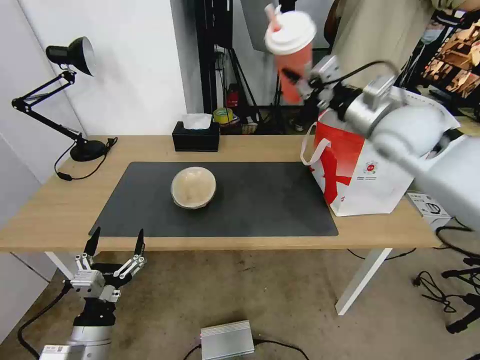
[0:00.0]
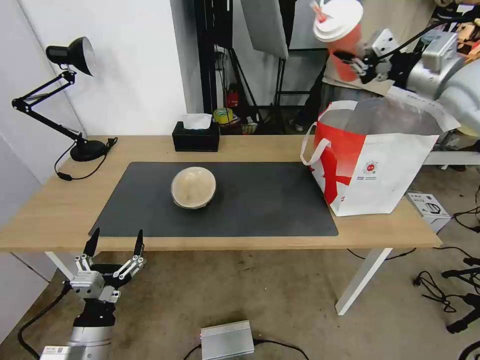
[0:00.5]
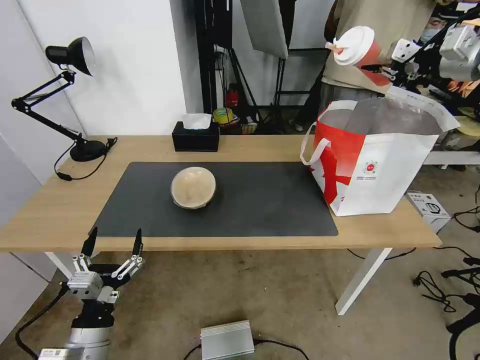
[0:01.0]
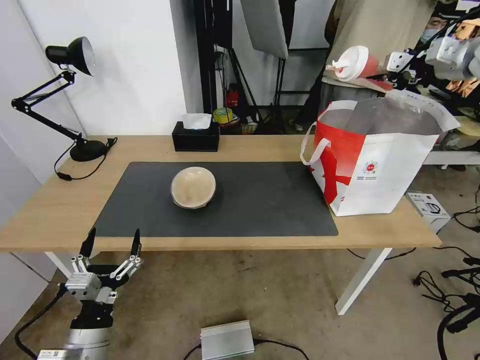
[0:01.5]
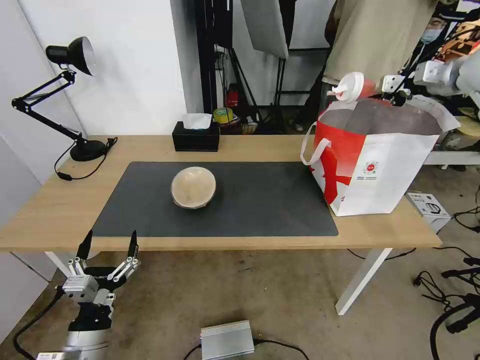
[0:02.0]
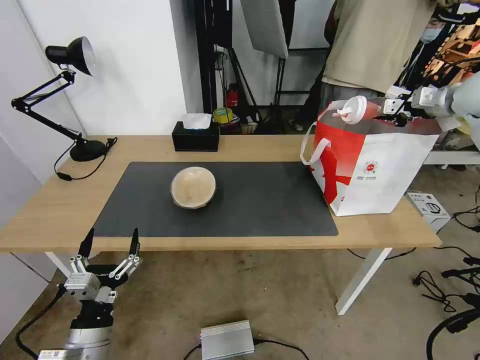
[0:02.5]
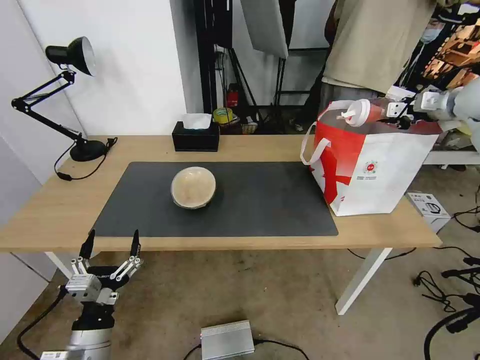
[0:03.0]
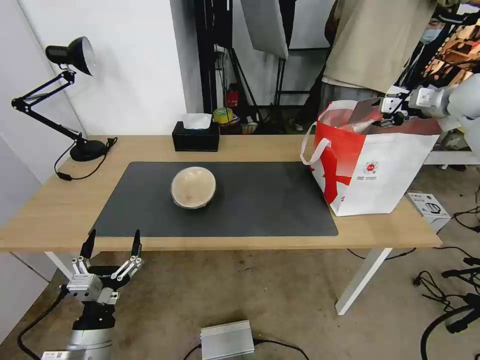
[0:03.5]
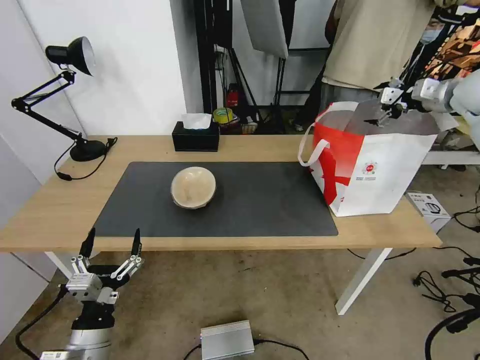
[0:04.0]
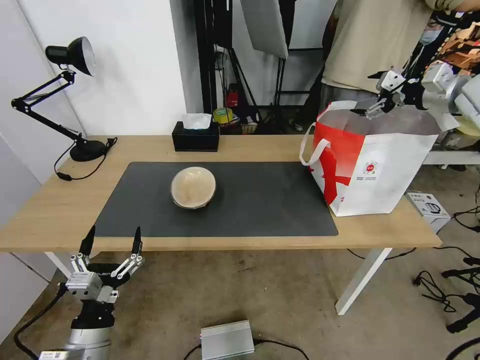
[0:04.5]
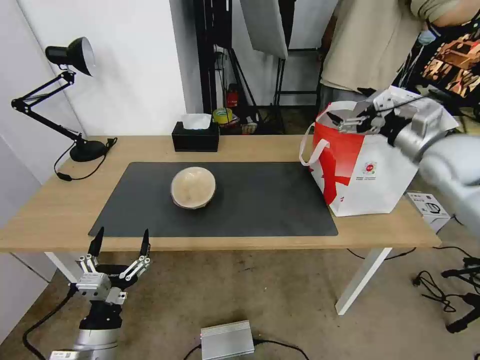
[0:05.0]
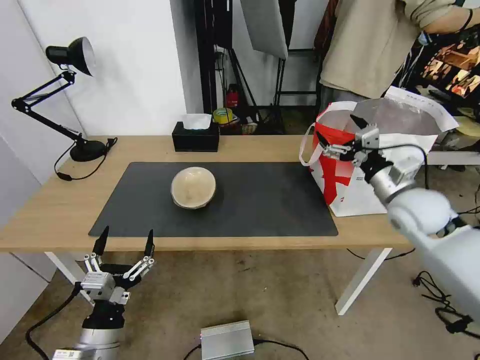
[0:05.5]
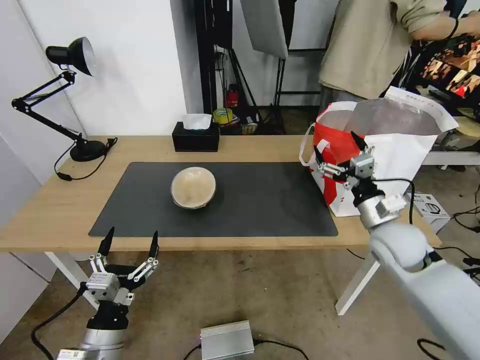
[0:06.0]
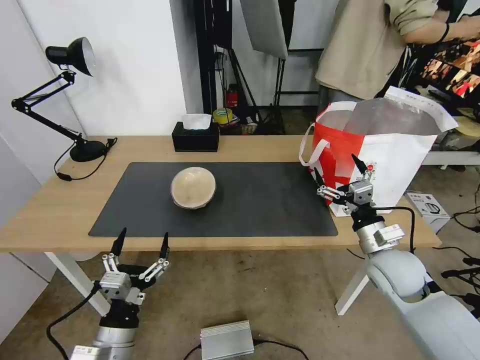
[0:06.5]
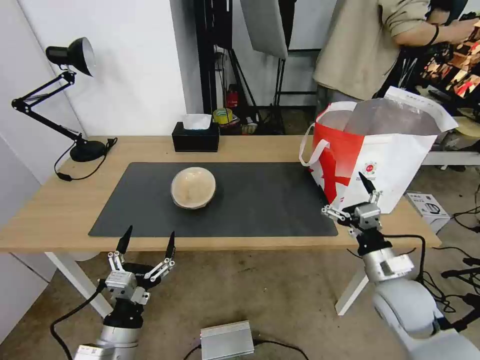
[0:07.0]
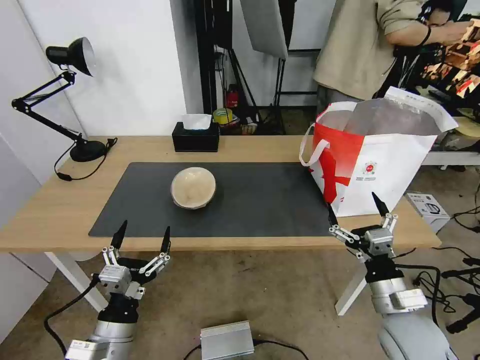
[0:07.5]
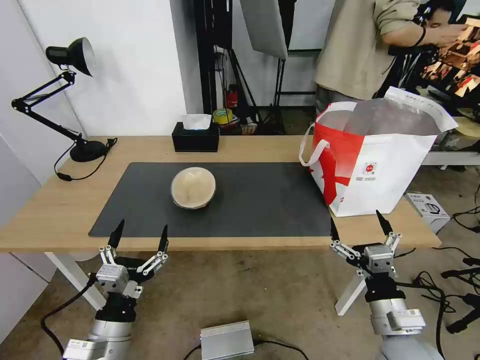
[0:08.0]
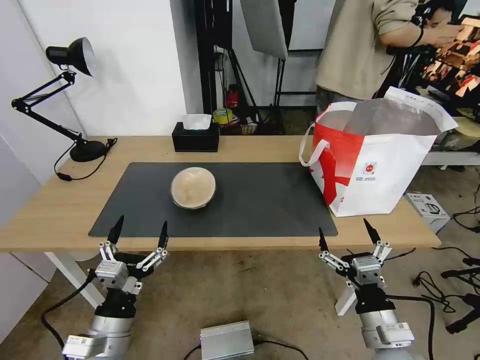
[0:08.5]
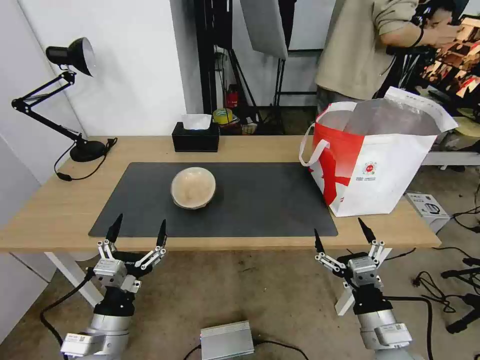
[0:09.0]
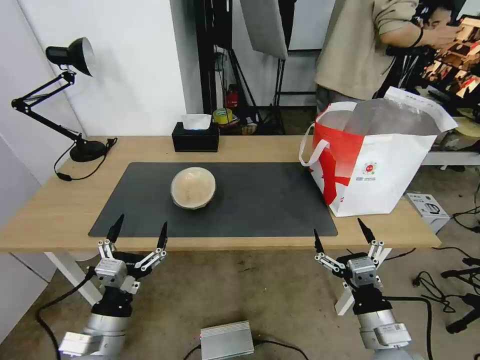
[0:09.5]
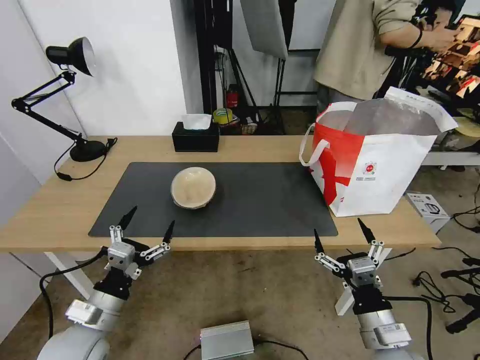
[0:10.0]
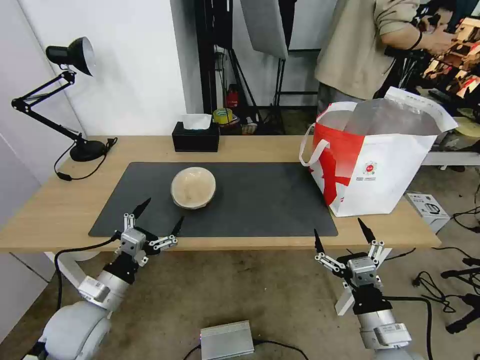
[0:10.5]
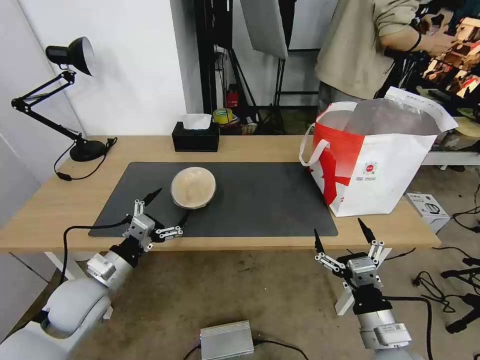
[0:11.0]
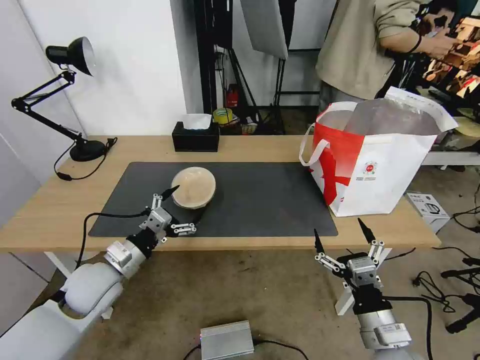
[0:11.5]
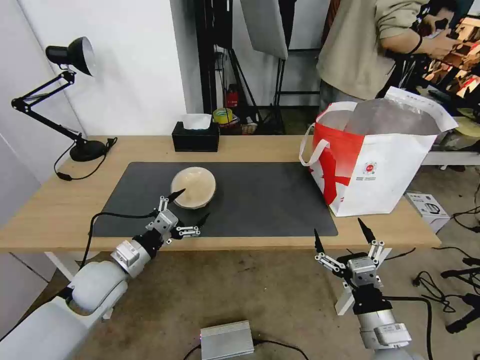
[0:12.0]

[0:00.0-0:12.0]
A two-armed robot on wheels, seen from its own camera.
Task of the whole recording: Pick up the trash from the table and place it into the takeout bag.
0:00.0 to 0:02.0: The right gripper goes some 25 cm to the right and forward.
0:02.0 to 0:04.0: The right gripper opens.
0:04.0 to 0:06.0: The right gripper moves downward, backward and to the left, roughly 35 cm.
0:06.0 to 0:08.0: The right gripper heads backward, covering some 20 cm.
0:08.0 to 0:10.0: The left gripper moves approximately 5 cm.
0:10.0 to 0:12.0: The left gripper is displaced forward by some 10 cm.

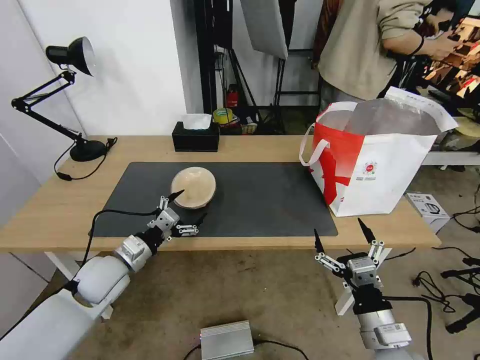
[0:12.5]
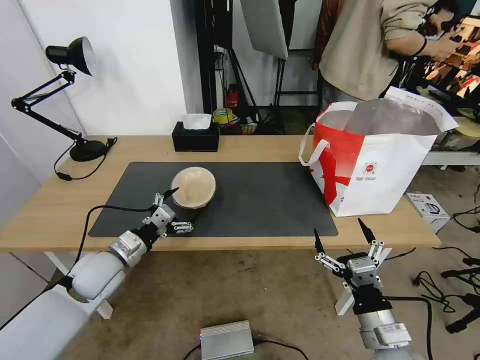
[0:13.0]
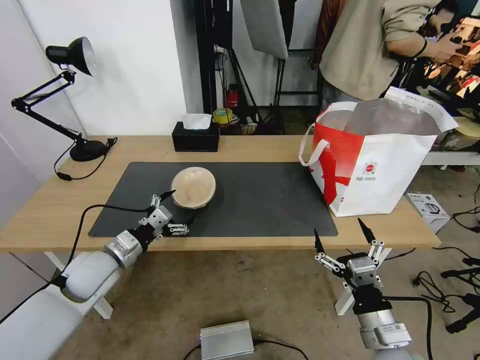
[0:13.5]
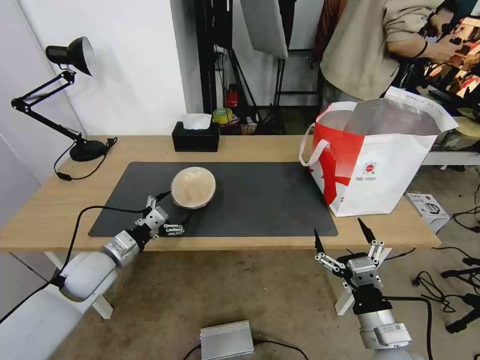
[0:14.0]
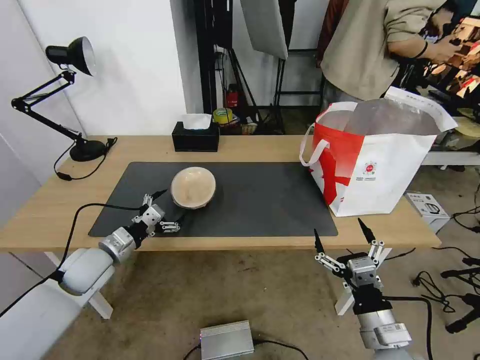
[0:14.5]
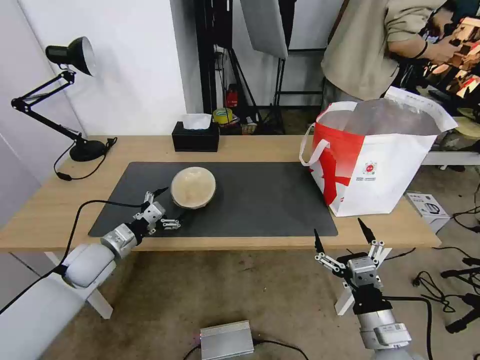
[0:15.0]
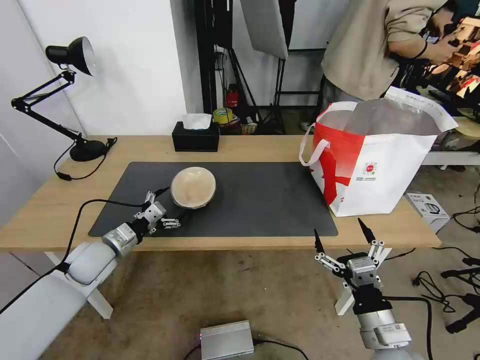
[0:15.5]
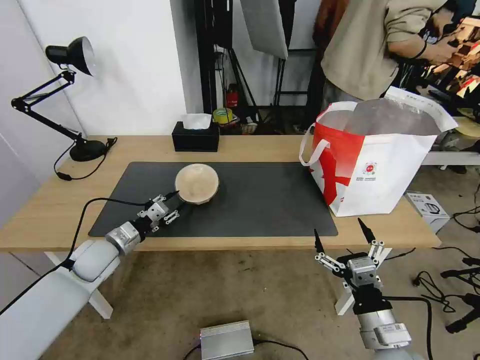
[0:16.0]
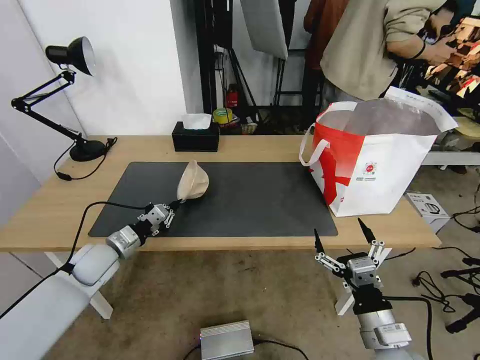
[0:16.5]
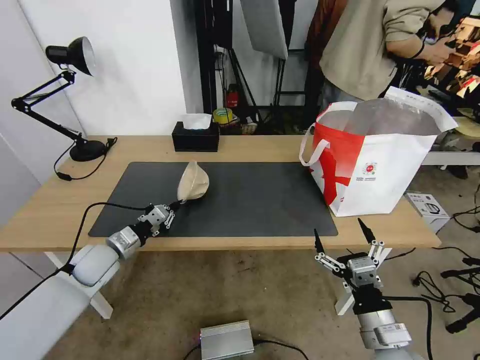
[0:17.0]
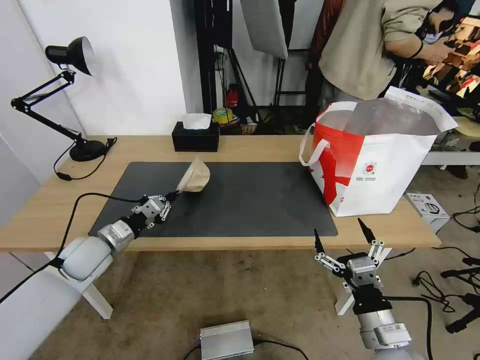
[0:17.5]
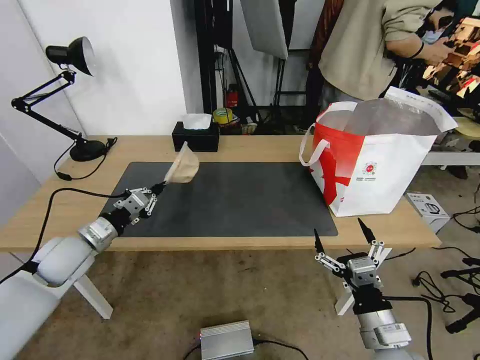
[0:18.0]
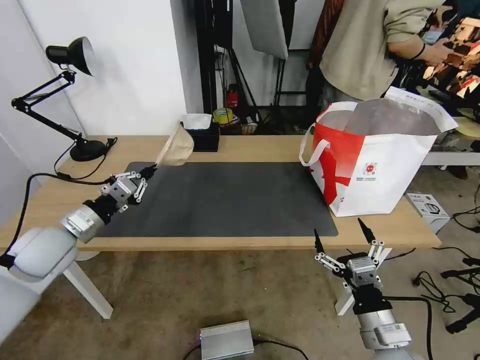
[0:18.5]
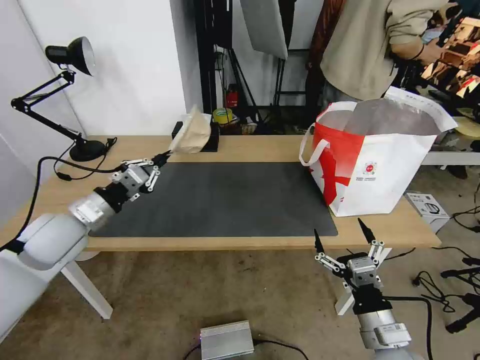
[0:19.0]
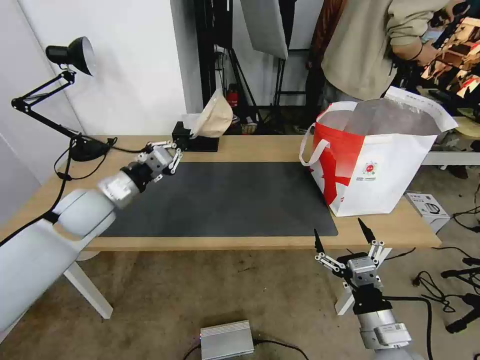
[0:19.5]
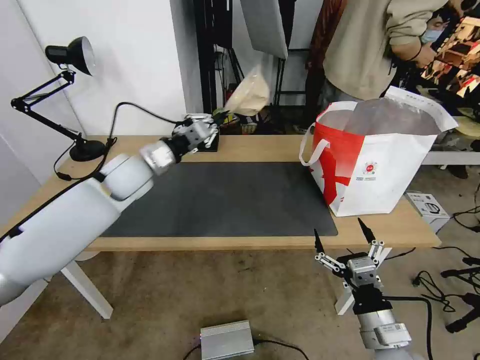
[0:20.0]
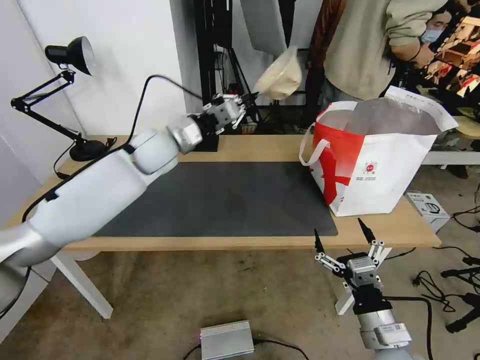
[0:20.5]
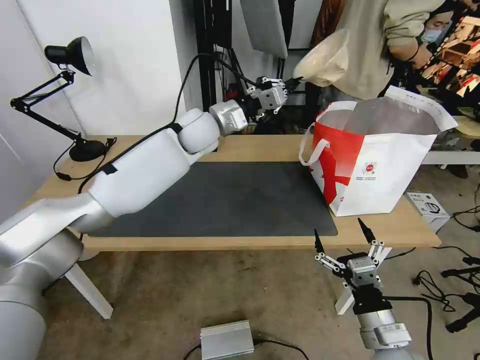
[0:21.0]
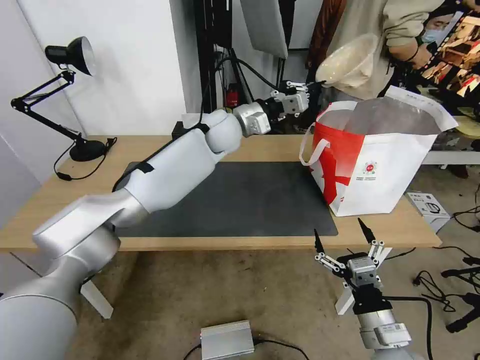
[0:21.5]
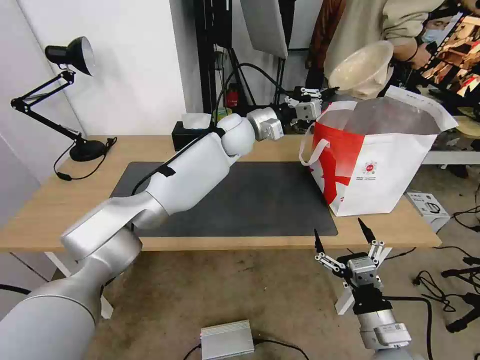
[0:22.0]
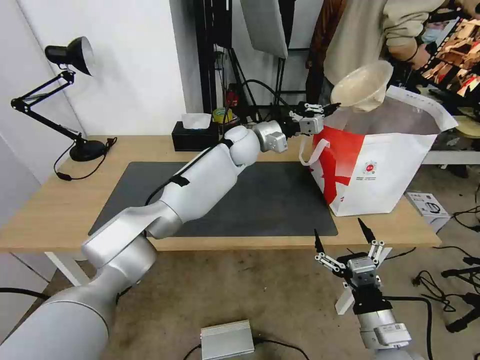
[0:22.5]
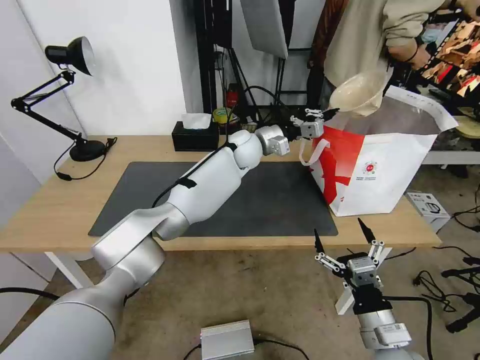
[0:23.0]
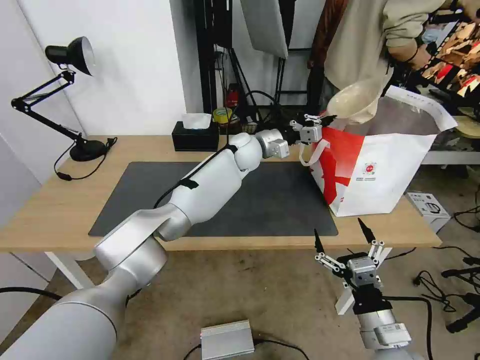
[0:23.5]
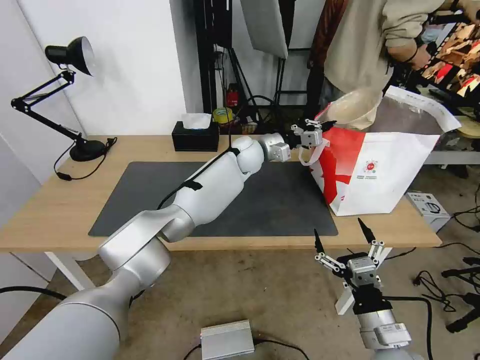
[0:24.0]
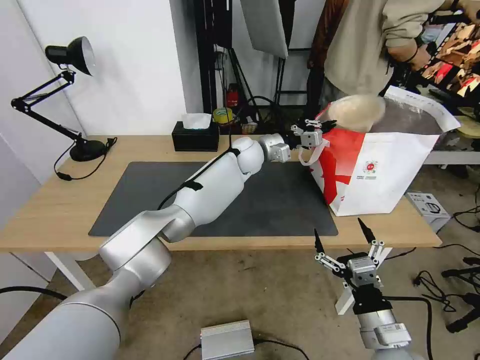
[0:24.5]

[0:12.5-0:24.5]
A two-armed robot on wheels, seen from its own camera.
Task of the whole recording: Pick up the trash from the table and place it into the takeout bag.
0:12.5 to 0:14.5: The grippers make only small movements.
0:14.5 to 0:16.5: The left gripper closes its fingers.
0:16.5 to 0:18.5: The left gripper is displaced upward by some 10 cm.
0:18.5 to 0:20.5: The left gripper goes about 30 cm to the right, forward and upward.
0:20.5 to 0:22.5: The left gripper travels to the right and forward by approximately 20 cm.
0:22.5 to 0:24.5: The grippers make only small movements.

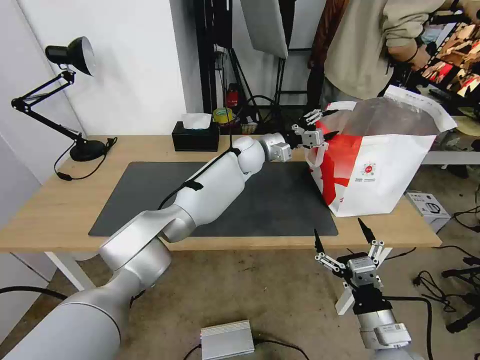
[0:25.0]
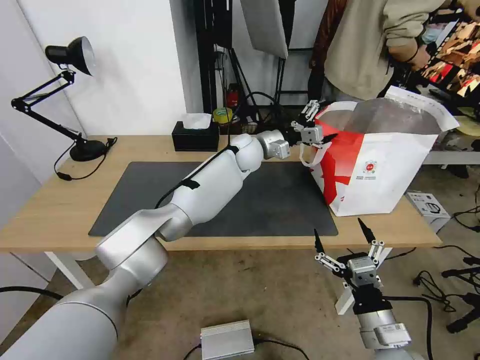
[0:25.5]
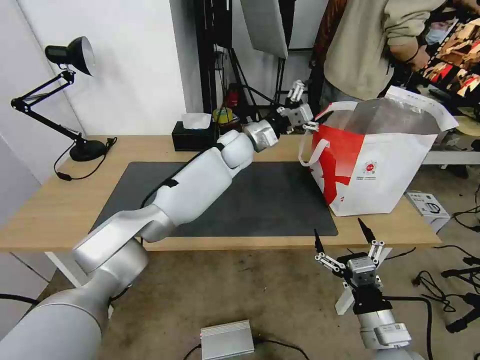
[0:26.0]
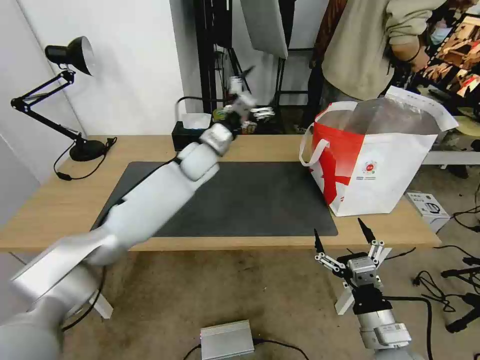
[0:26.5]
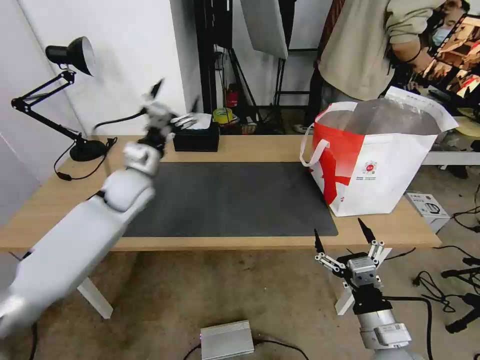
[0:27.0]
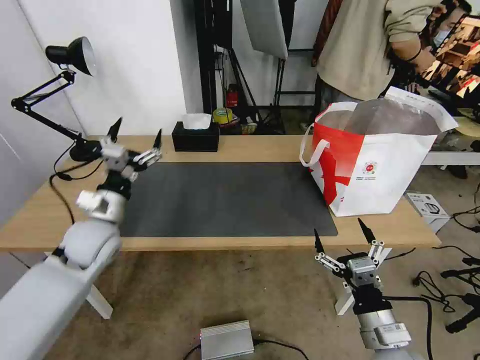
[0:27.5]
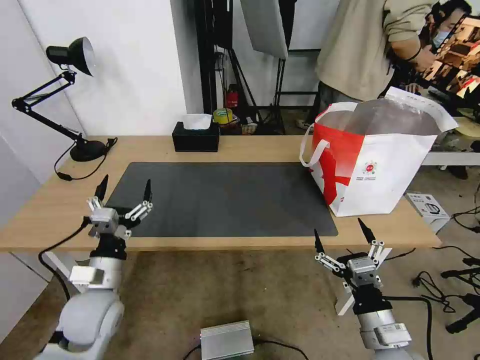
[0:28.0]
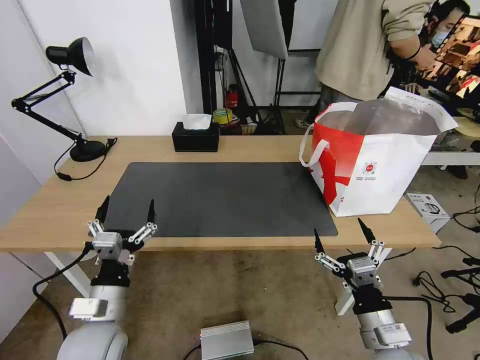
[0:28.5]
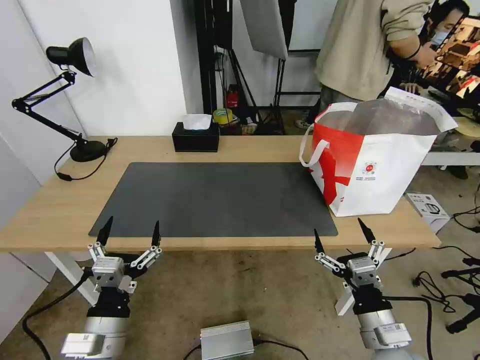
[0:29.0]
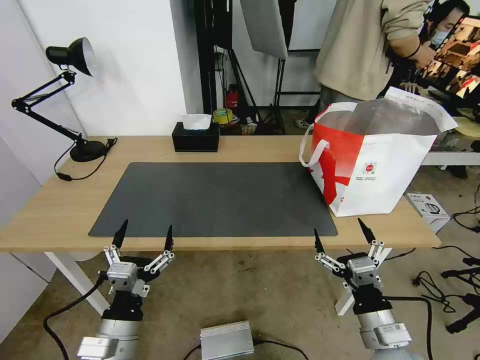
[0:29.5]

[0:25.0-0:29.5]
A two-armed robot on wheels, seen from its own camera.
Task of the whole recording: Pick up the trash from the table and place it into the takeout bag.
0:25.0 to 0:27.0: The left gripper travels to the left and backward by some 30 cm.
0:27.0 to 0:29.5: The left gripper moves backward, roughly 35 cm.
